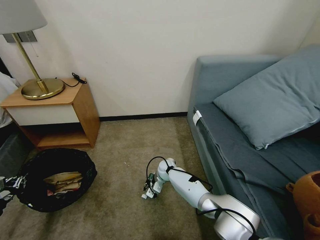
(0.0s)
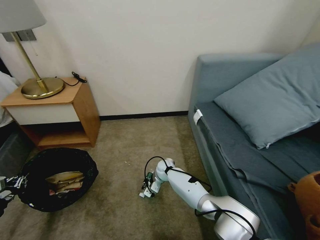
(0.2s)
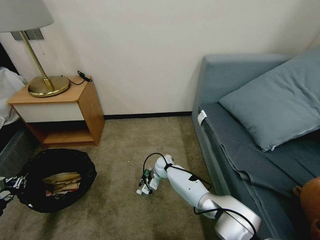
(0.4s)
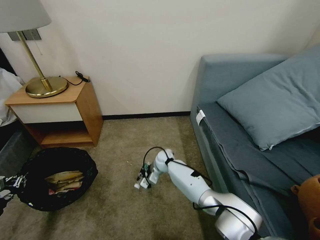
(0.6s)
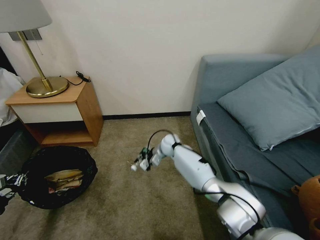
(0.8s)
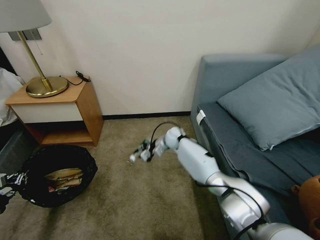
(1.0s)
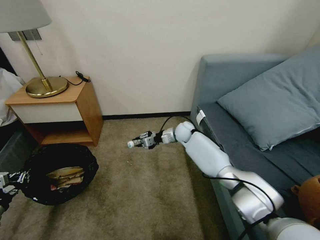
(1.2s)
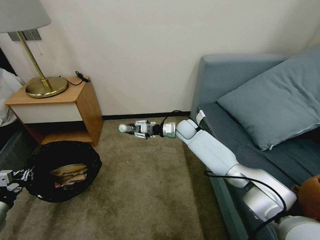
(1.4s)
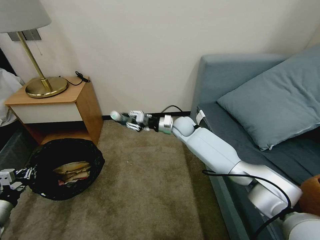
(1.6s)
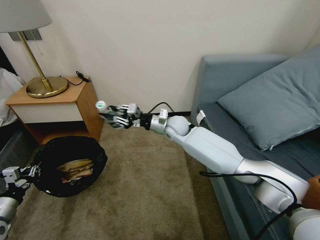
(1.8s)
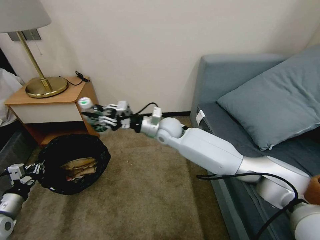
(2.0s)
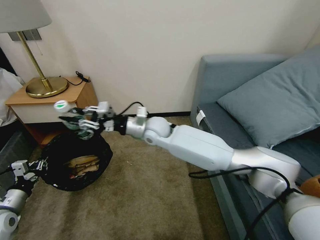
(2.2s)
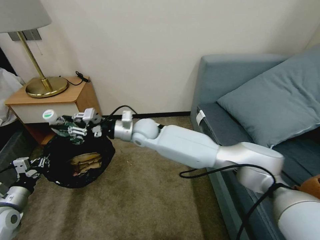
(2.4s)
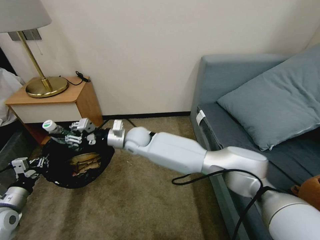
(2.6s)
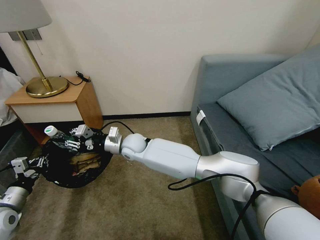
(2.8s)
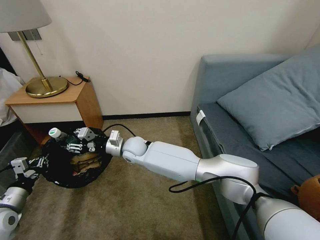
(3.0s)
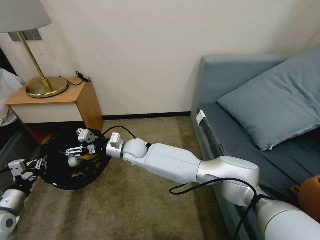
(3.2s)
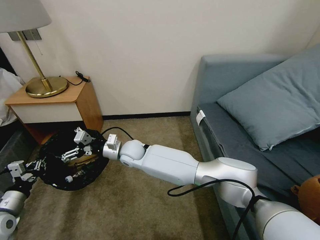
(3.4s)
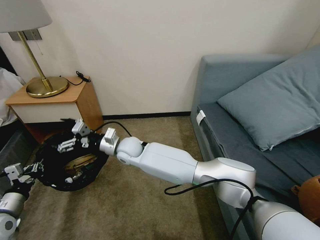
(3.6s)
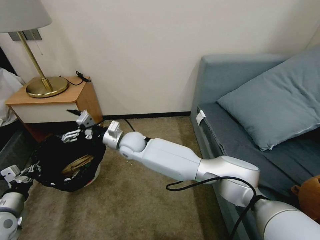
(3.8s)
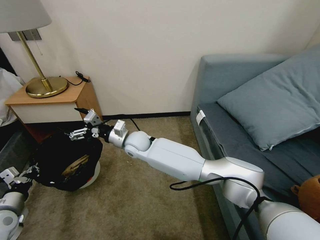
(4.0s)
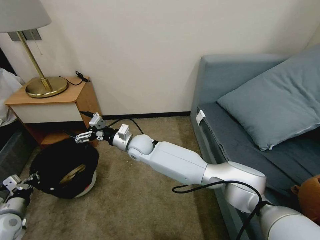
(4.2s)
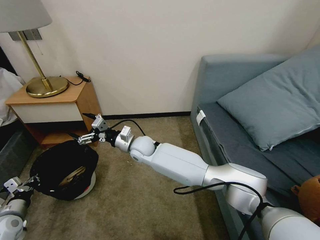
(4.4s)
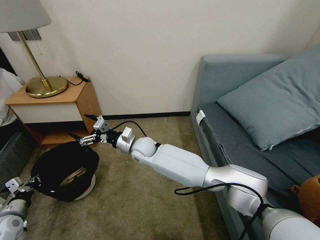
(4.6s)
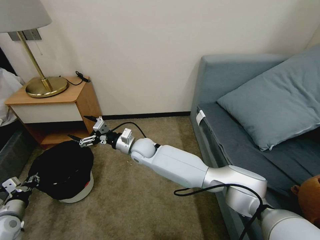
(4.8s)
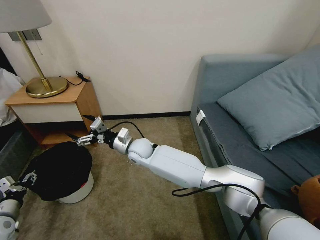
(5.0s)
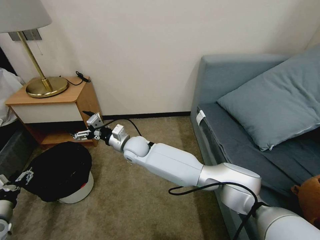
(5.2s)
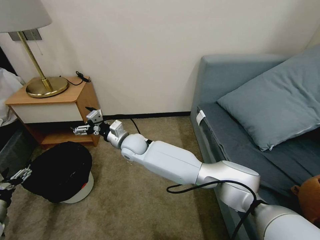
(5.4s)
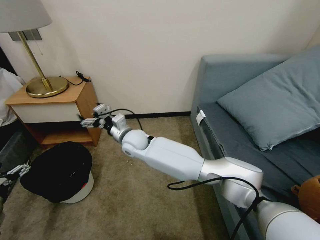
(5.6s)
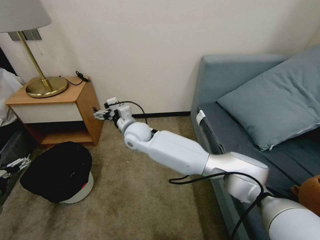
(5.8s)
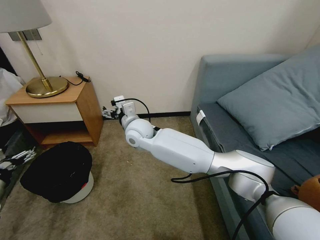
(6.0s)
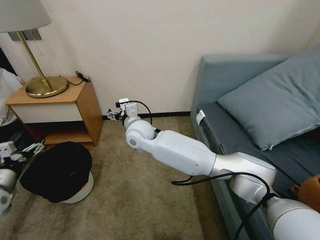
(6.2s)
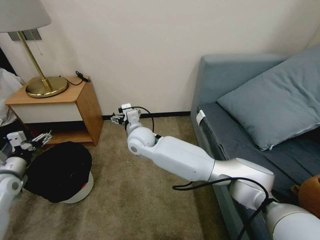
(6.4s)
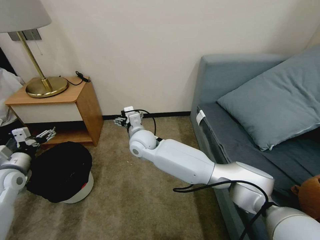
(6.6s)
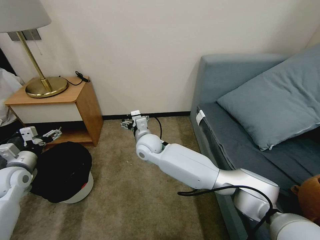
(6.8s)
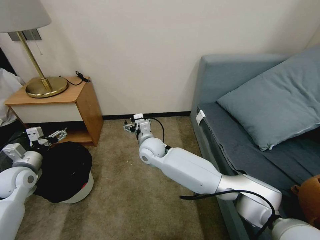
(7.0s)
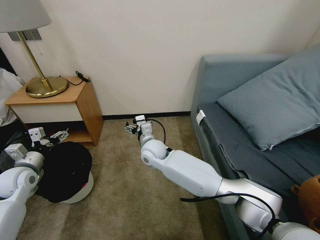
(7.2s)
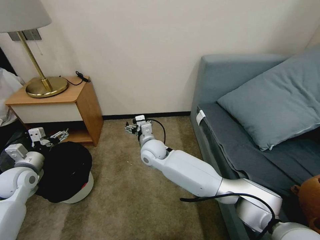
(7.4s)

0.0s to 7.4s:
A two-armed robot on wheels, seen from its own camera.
Task of the whole recording: Pick up the trash bin, then pick up the garbage on the floor and place it into the trash bin.
0.0s to 1.4s: The right gripper heads upward, forward and to the right, covering about 20 cm.
1.4s to 3.0s: The right gripper shifts approximately 25 cm to the left and backward; the left gripper goes some 5 cm to the right.
3.0s to 4.4s: The right gripper opens. The left gripper goes some 5 cm downward.
4.4s to 6.0s: The two grippers go roughly 10 cm upward. The left gripper opens.
6.0s to 7.4s: The left gripper goes about 10 cm forward and to the right; the right gripper goes roughly 10 cm downward.

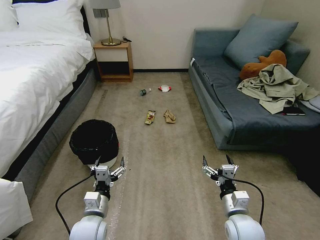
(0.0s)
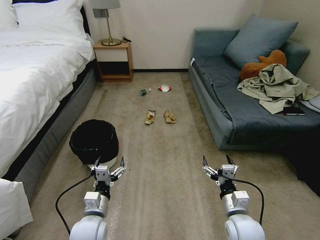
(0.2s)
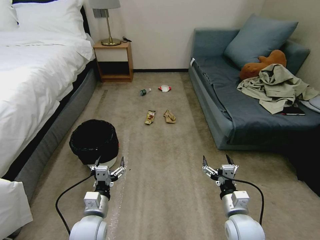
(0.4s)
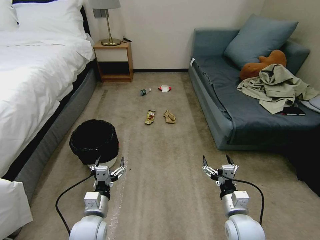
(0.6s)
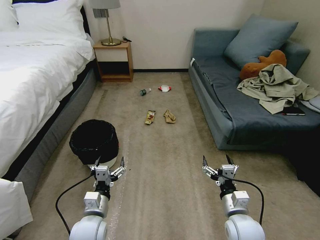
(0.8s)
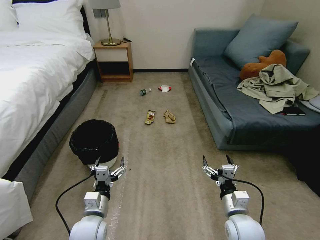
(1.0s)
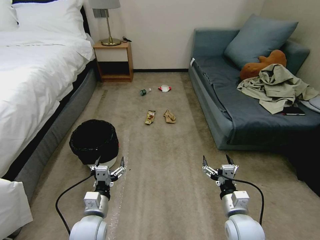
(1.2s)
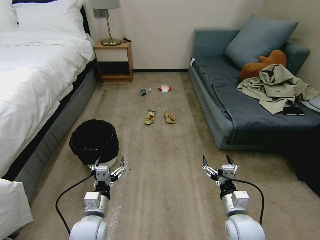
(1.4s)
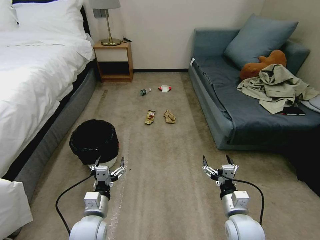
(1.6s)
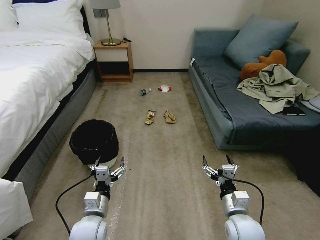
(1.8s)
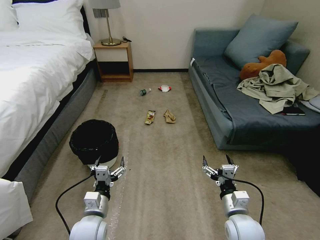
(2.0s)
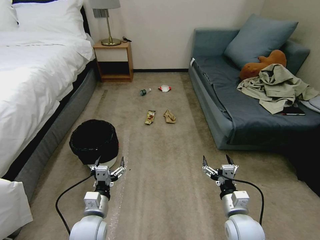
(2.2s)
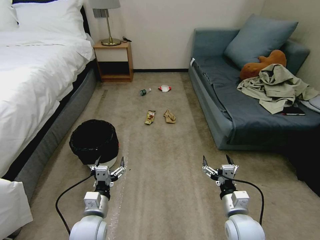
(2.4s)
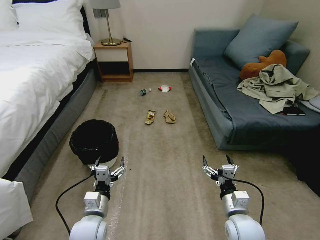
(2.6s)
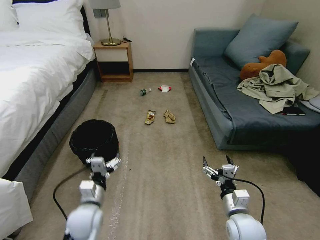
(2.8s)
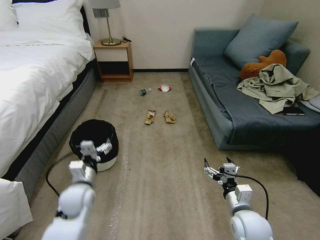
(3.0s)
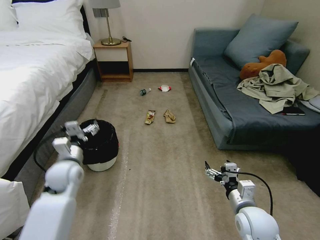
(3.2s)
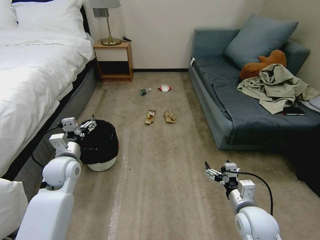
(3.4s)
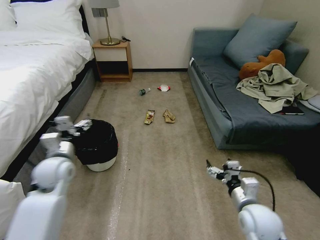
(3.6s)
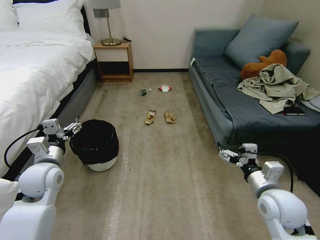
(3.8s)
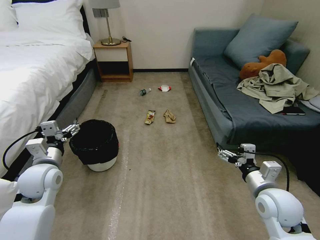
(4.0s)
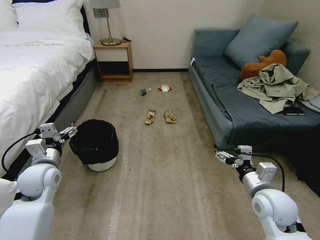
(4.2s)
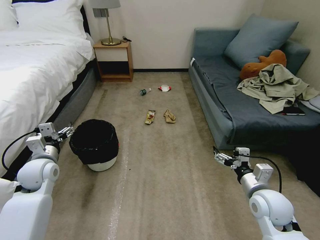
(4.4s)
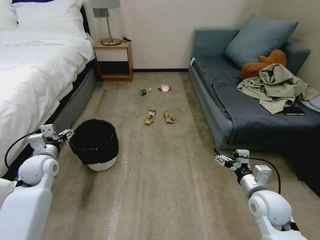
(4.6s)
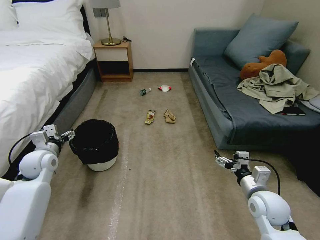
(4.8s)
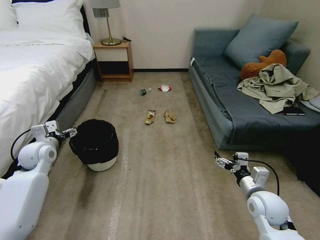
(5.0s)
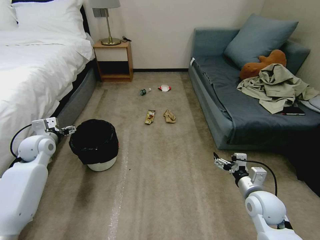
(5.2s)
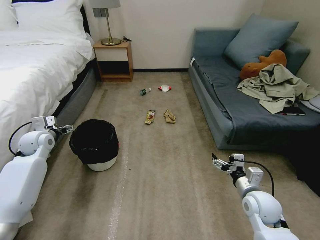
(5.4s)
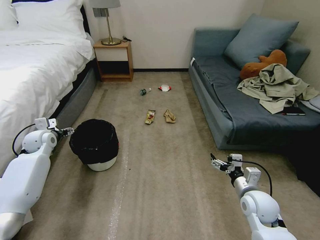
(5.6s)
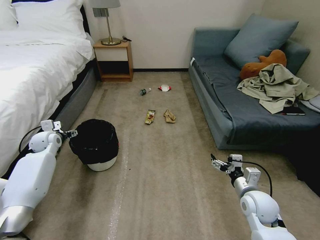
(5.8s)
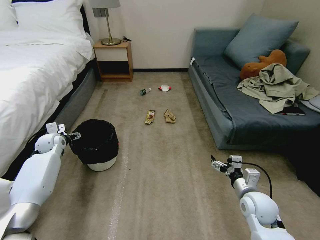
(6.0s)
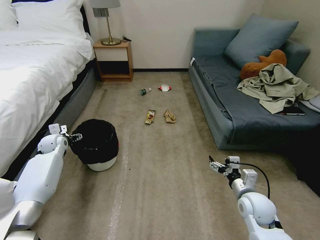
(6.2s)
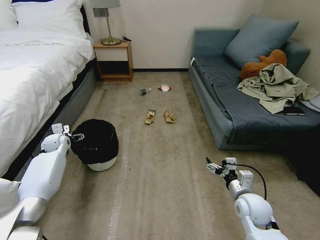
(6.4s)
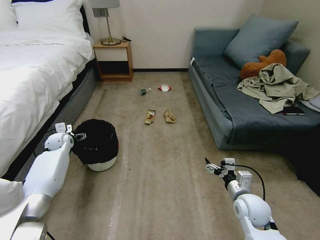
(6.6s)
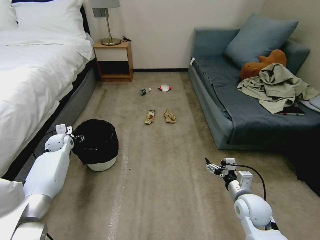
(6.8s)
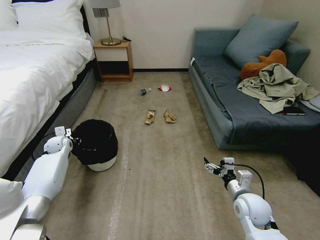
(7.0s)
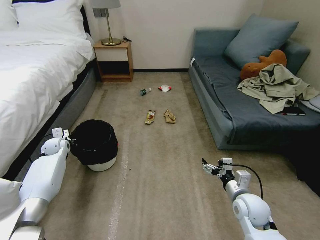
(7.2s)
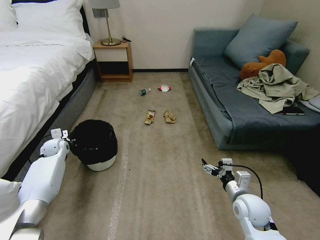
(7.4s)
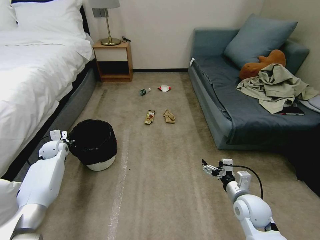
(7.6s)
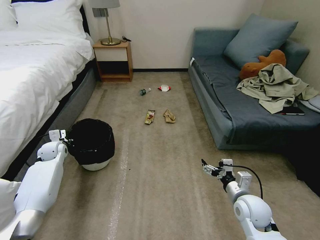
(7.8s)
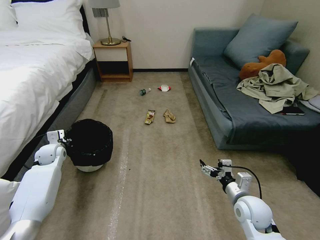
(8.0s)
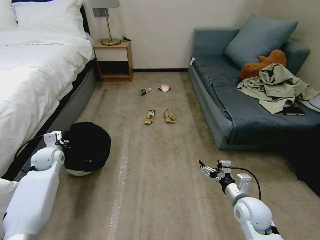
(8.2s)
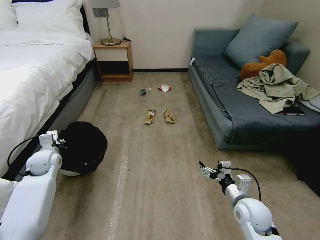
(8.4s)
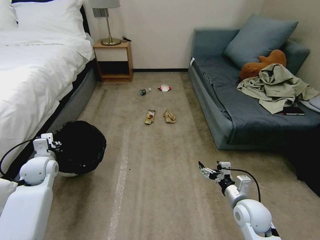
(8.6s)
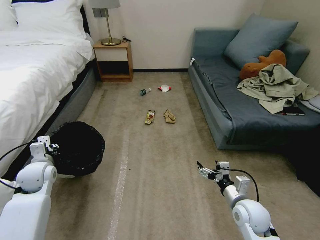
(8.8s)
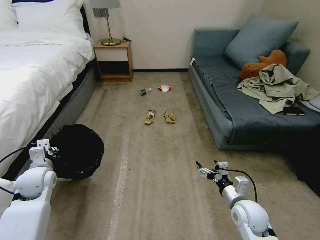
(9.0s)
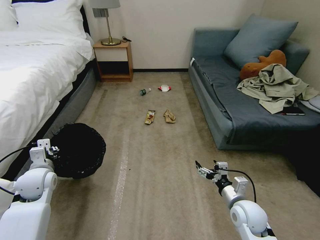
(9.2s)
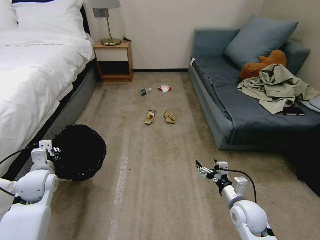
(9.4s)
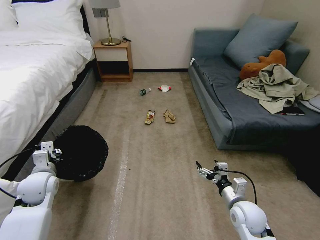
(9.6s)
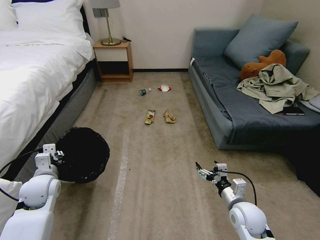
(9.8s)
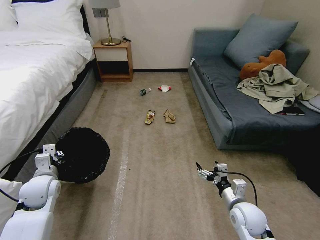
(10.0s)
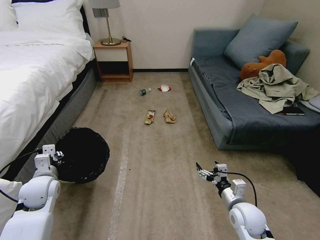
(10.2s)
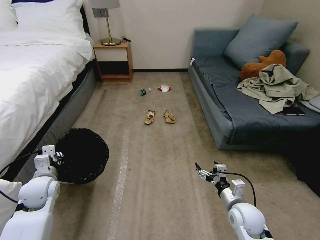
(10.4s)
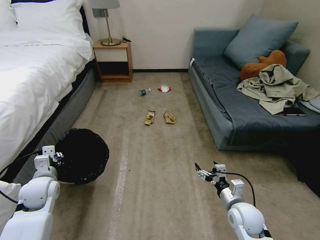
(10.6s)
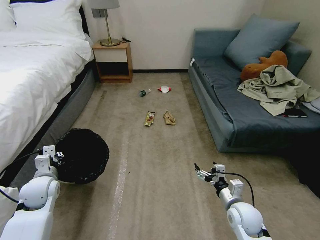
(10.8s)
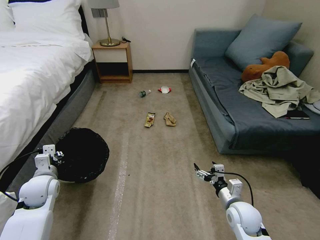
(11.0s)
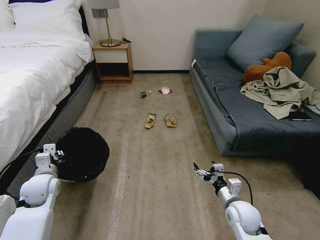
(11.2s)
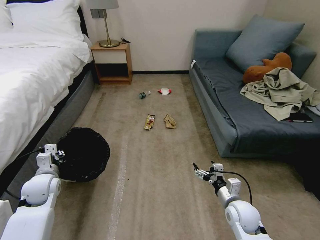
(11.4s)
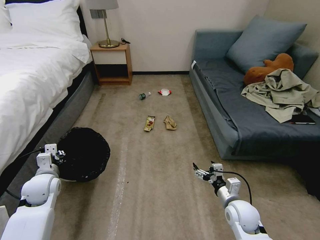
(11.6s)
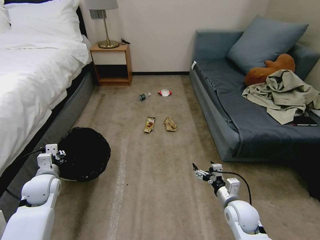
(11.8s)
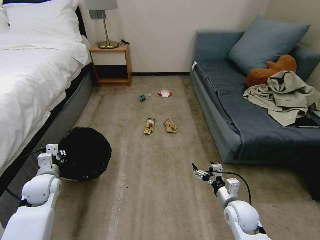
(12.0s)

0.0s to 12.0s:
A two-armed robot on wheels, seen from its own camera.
Task of the whole recording: Pick up the trash bin, then pick up the garbage on the floor and place it into the trash bin.
1.6s to 3.0s: The left gripper moves forward, to the left and upward, about 10 cm.
3.0s to 4.4s: The right gripper shifts roughly 5 cm to the right. Meanwhile the left gripper shifts about 10 cm to the left and upward.
4.4s to 6.0s: The left gripper moves forward and to the left, some 15 cm; the right gripper goes roughly 5 cm downward.
6.0s to 7.6s: The left gripper closes up.
7.6s to 9.0s: The left gripper heads backward, covering roughly 15 cm.
9.0s to 10.4s: The grippers make only small movements.

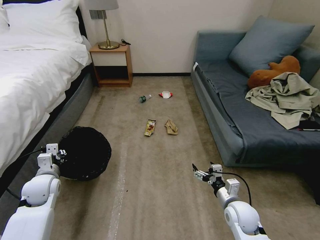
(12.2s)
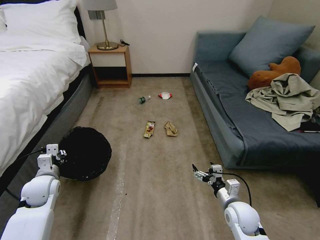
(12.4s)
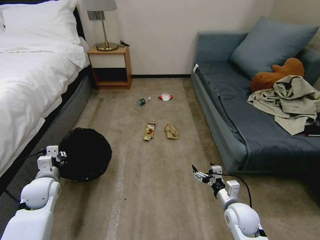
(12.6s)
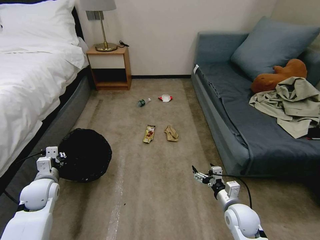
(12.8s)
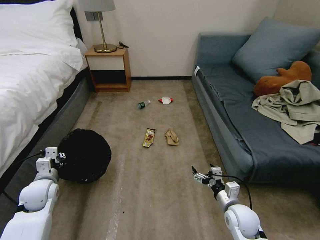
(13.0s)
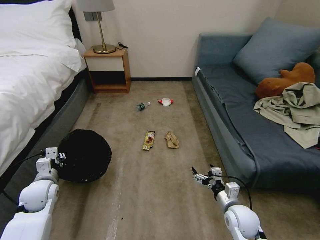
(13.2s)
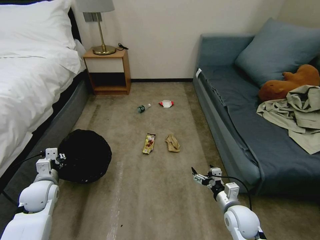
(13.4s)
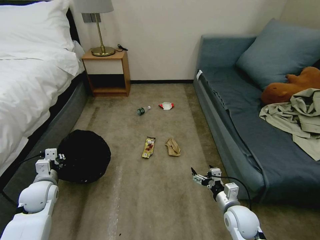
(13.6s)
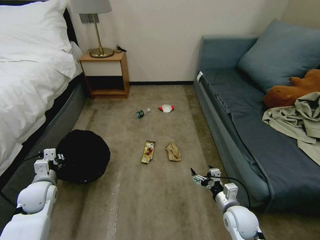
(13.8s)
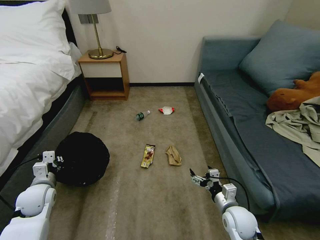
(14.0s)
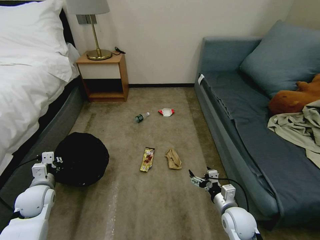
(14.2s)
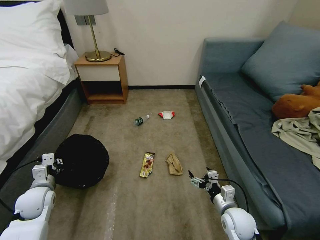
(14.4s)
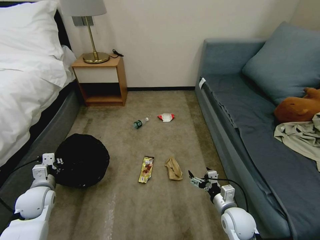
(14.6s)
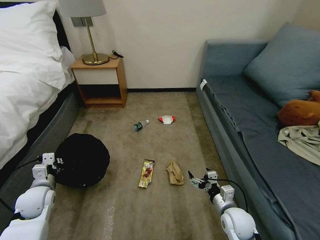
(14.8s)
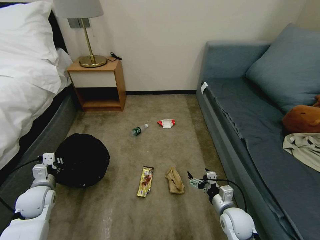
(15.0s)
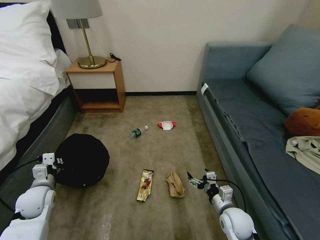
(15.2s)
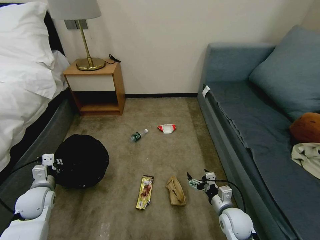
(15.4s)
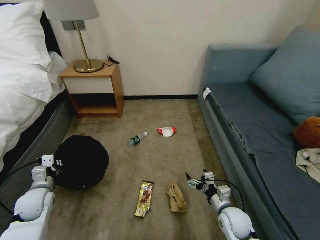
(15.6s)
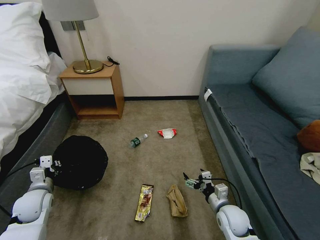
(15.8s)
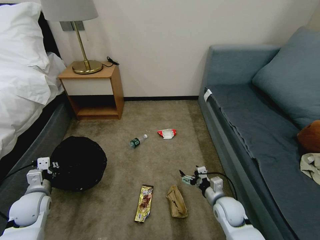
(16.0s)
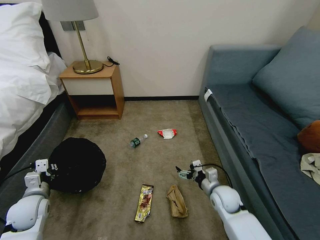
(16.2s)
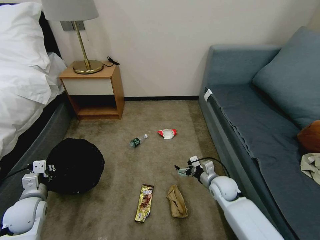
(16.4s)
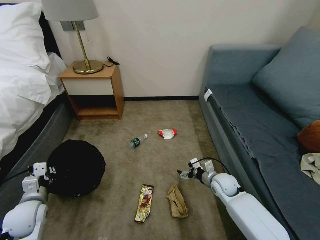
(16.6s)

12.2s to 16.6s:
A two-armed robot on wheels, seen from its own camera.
Task of the whole recording: Pick up the trash bin, then pick up the garbage on the floor and place it into the trash bin.
15.2s to 16.6s: The right gripper goes roughly 15 cm forward.
